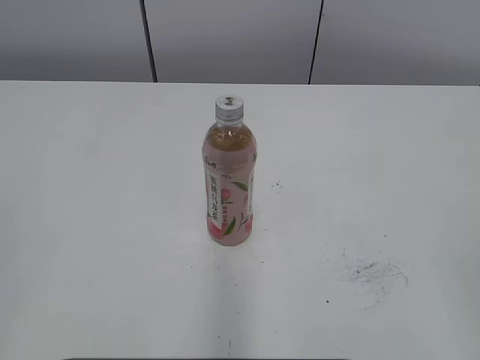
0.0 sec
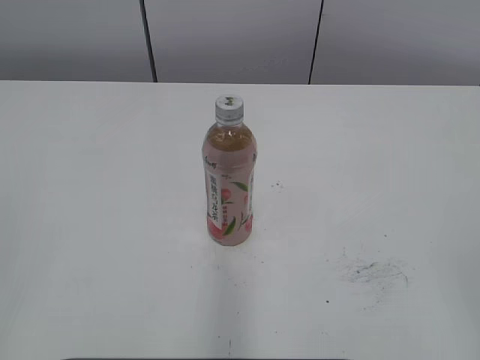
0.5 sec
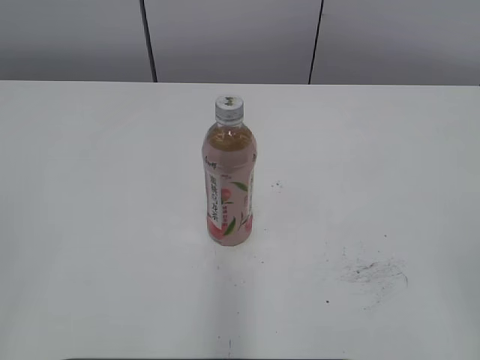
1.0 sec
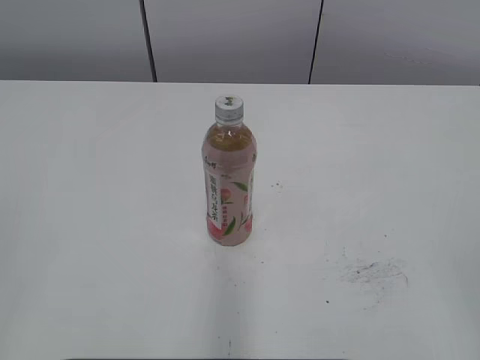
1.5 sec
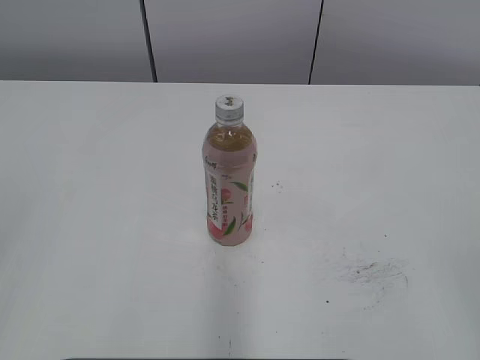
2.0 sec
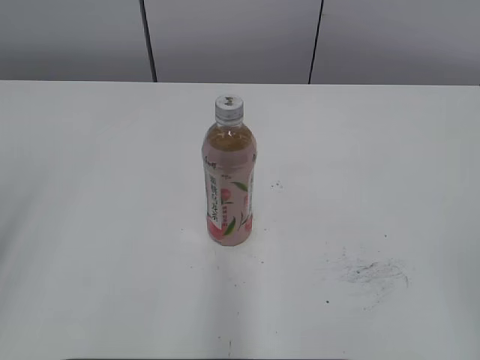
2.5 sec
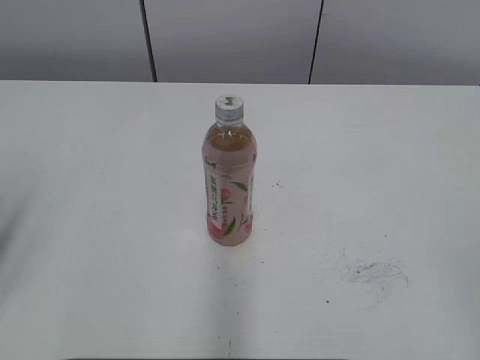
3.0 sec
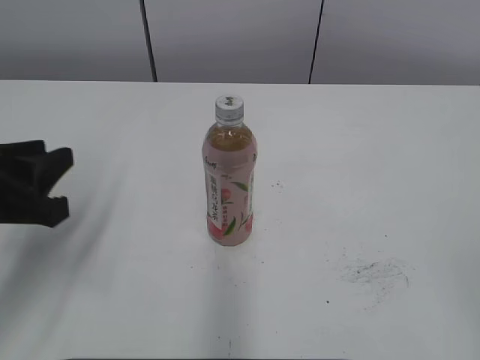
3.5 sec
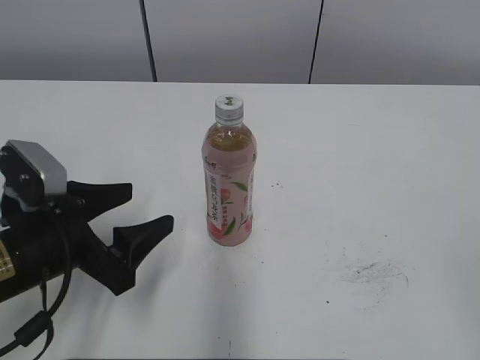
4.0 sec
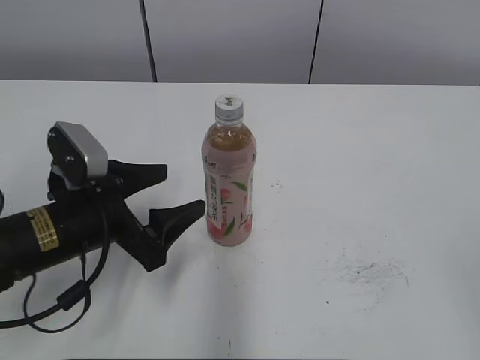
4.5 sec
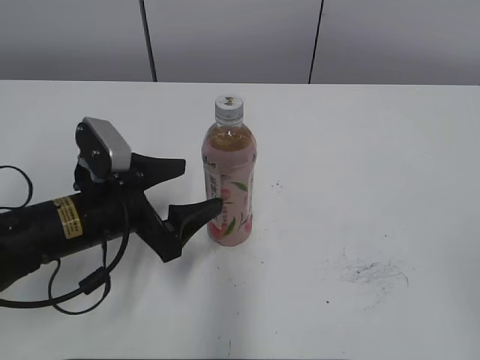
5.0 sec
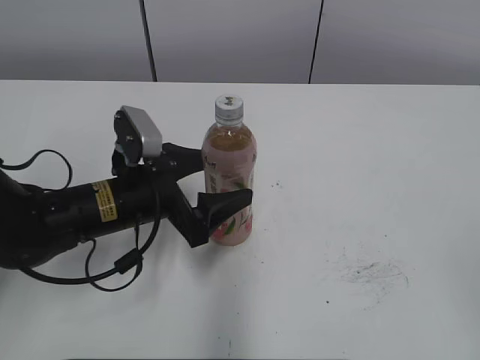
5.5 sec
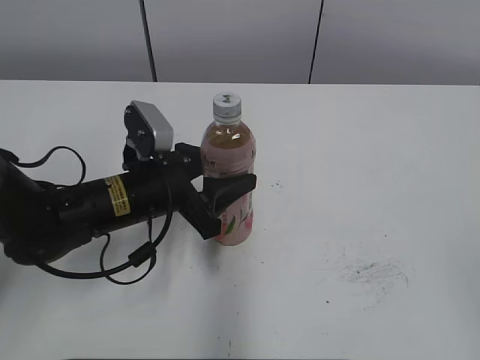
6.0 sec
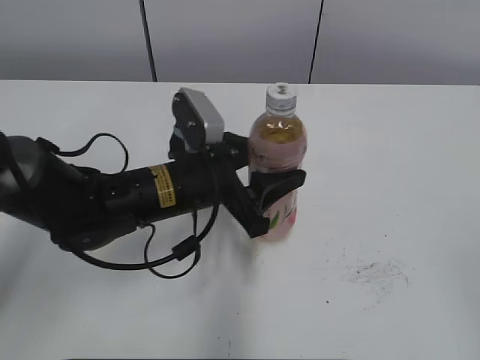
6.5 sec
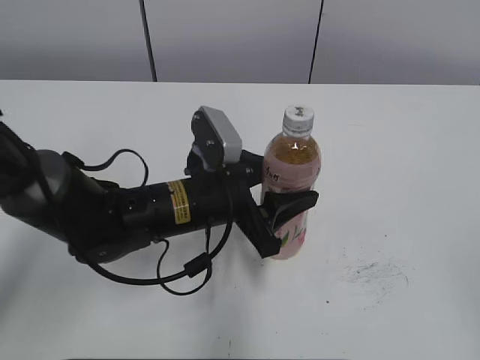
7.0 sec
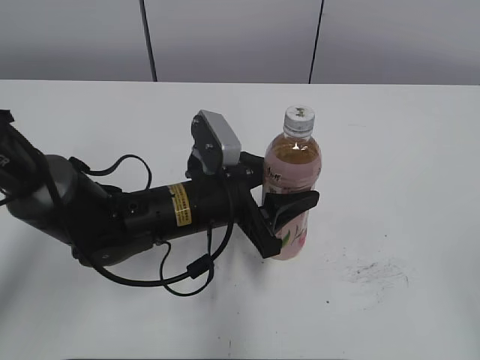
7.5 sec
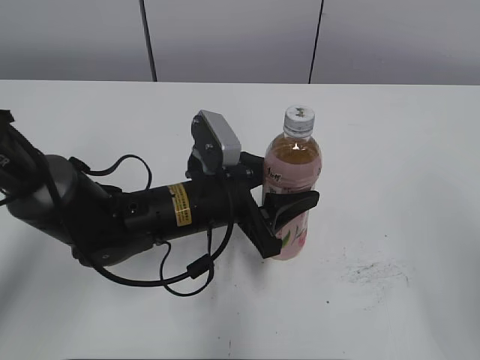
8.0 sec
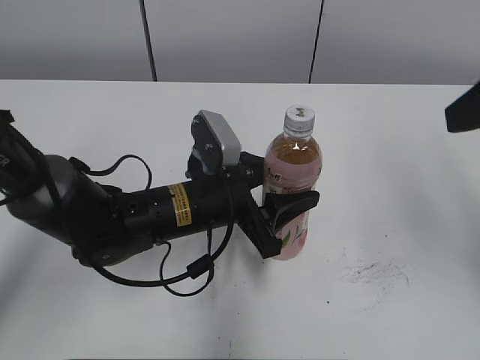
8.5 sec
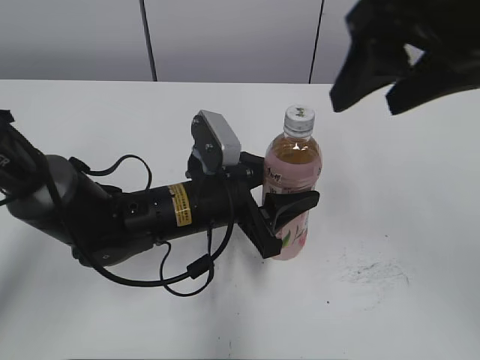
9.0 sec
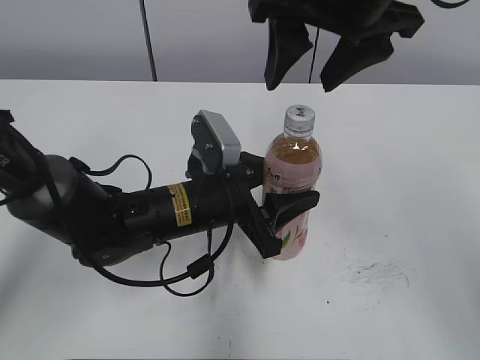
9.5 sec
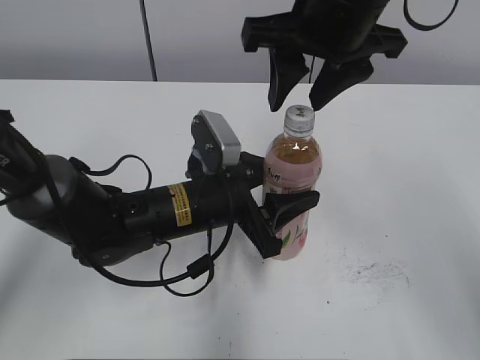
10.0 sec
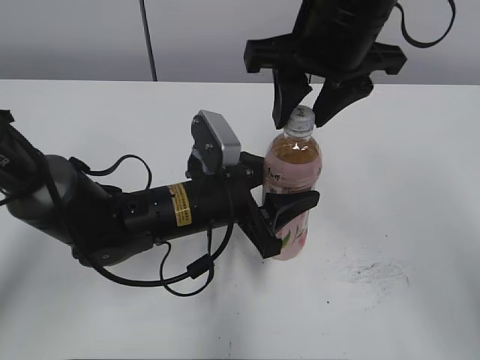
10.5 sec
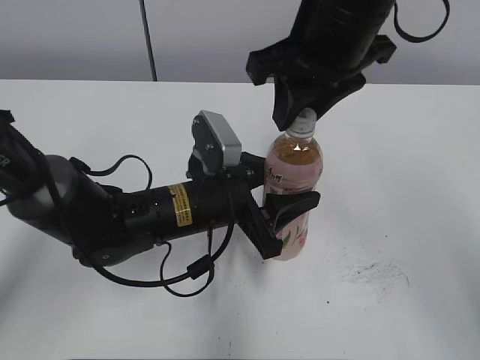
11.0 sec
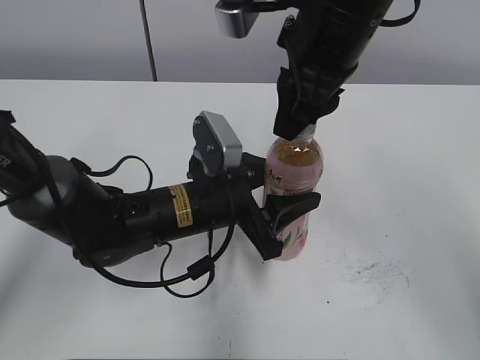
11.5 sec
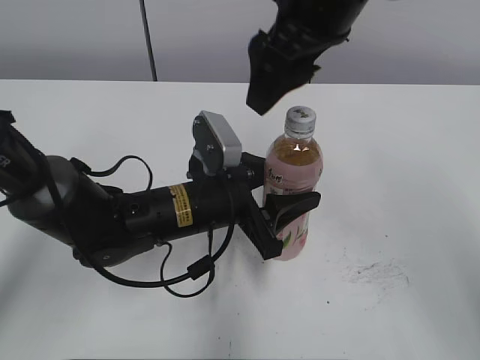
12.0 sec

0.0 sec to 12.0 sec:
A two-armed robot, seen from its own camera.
Step, 0.0 sec to 5.5 sec: Grab the Peach Oolong Tea with the left hand.
Step, 6.0 sec to 10.0 sec: Move the Peach Oolong Tea from left to right.
2.0 sec to 4.0 sec: The left gripper travels downward, forward and to the right by some 30 cm, and opens.
4.0 sec to 6.0 sec: The left gripper heads forward and to the right, covering about 10 cm, and closes up.
6.0 sec to 8.0 sec: The left gripper heads to the right, covering approximately 5 cm. Meanwhile the right gripper moves forward, approximately 10 cm.
8.0 sec to 10.0 sec: The right gripper heads forward and to the left, covering roughly 30 cm, and closes.
10.0 sec to 12.0 sec: The right gripper opens.

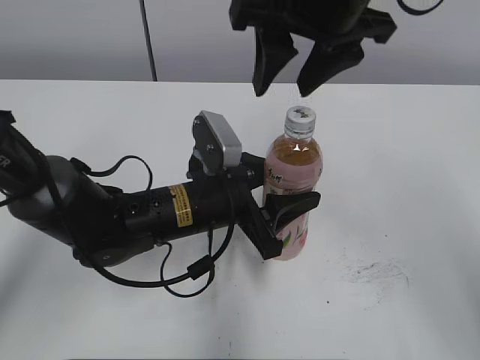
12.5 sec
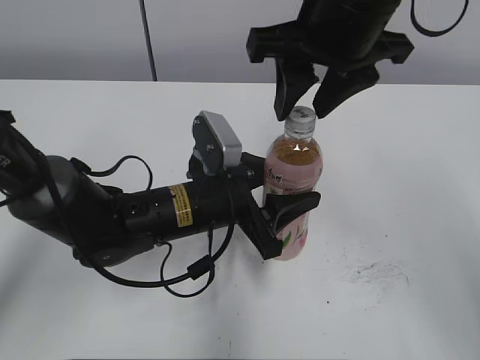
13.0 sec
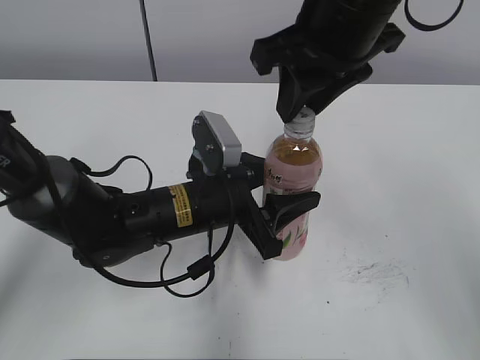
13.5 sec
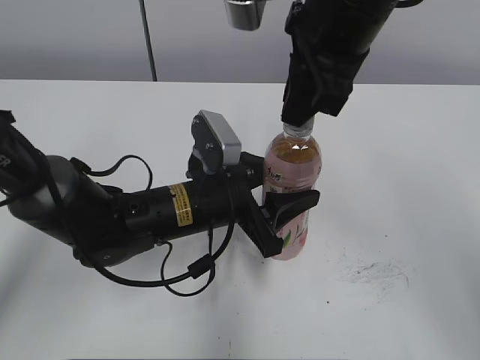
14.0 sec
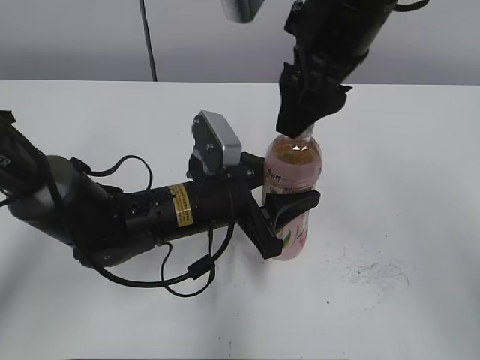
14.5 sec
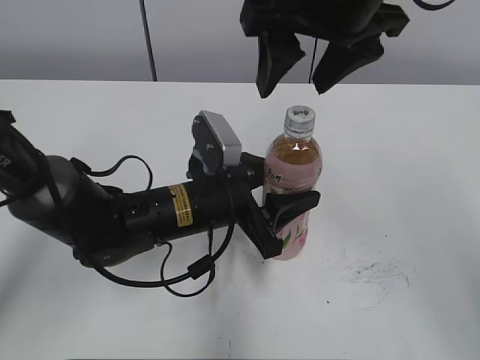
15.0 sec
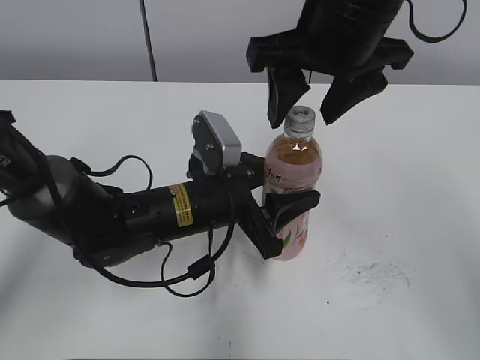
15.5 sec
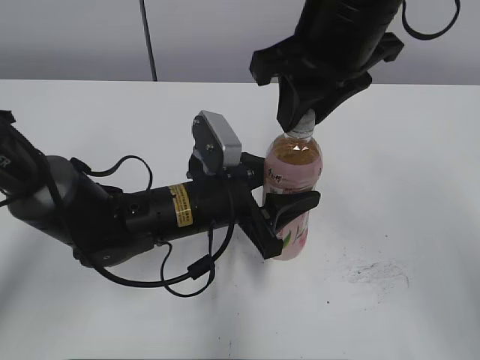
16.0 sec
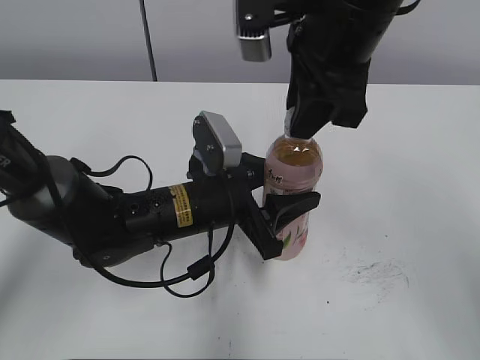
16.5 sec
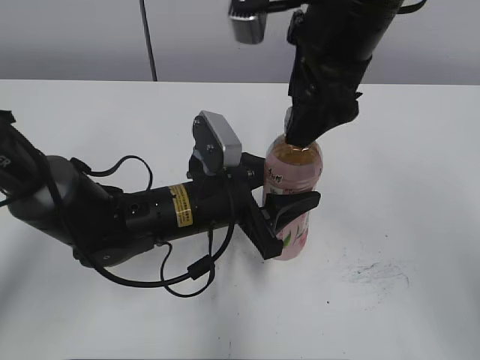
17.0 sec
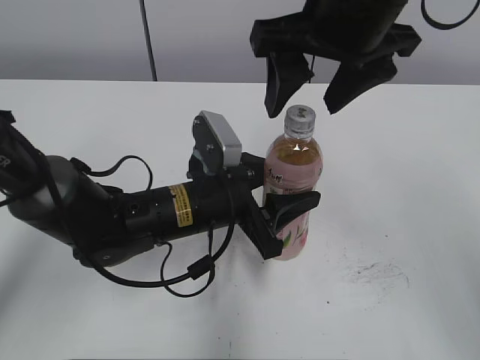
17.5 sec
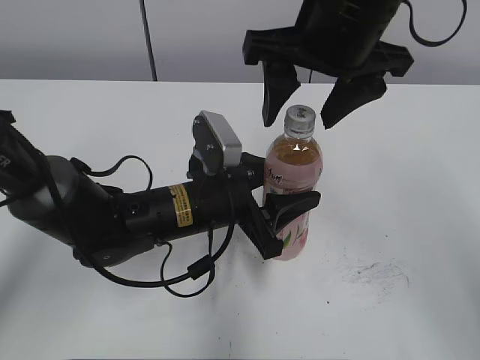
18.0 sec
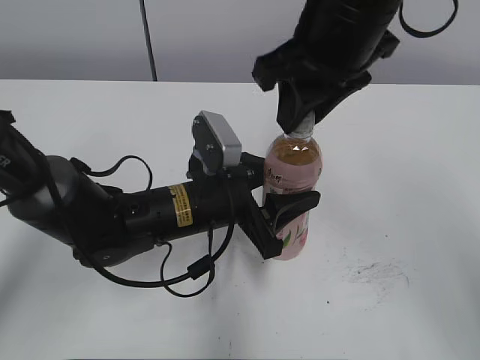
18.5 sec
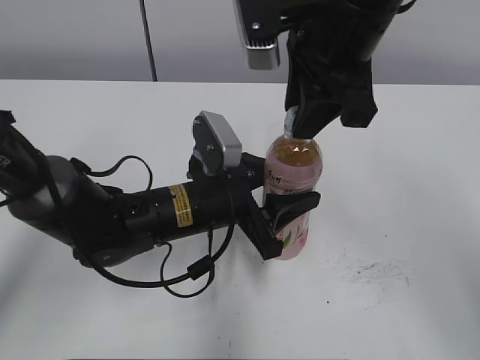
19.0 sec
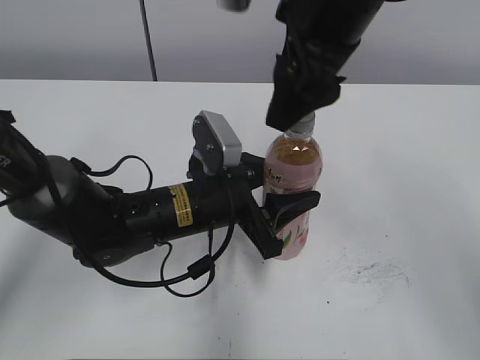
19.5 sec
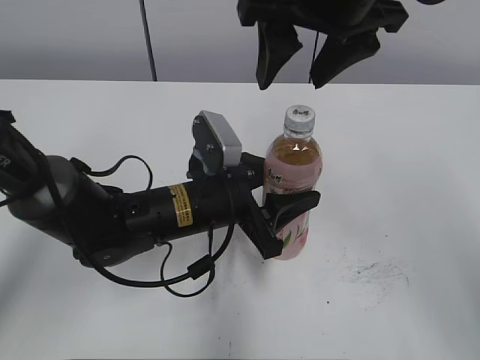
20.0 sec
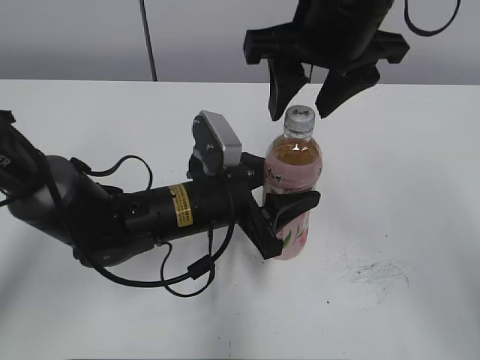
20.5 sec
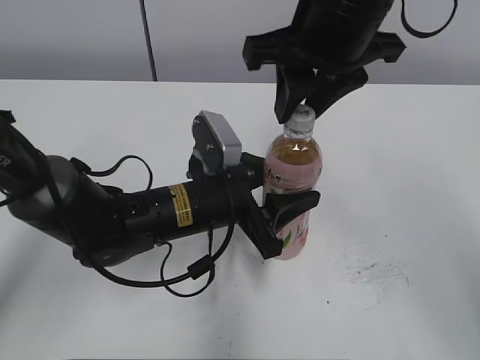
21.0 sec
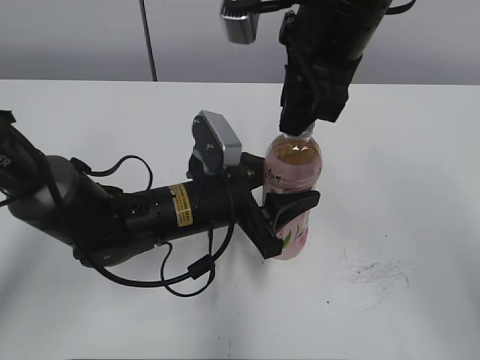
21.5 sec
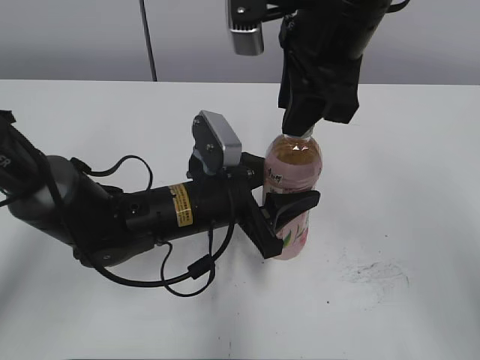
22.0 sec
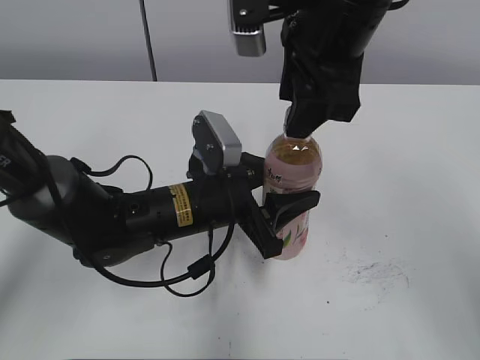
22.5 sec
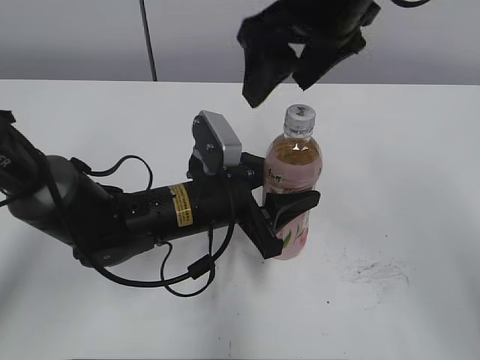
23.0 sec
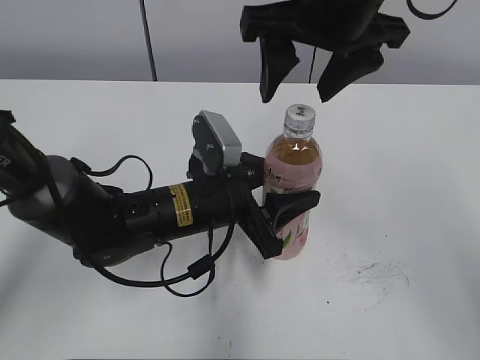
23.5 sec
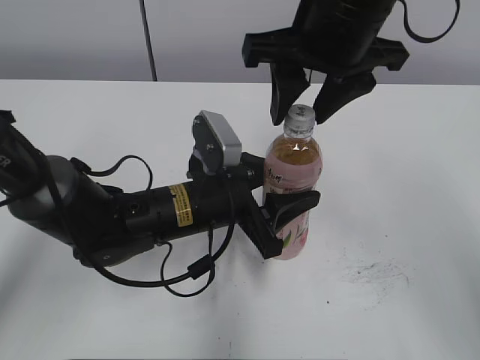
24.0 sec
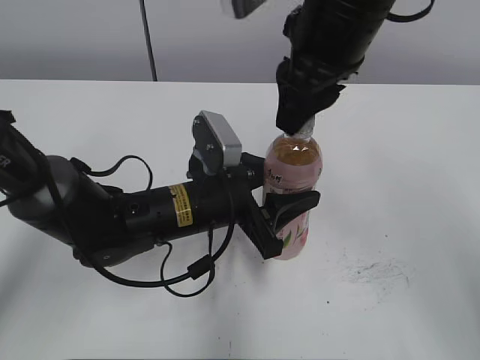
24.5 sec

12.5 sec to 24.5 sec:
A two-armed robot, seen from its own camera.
12.5 sec to 14.5 sec: The right gripper closes, then opens again.
14.5 sec to 16.5 sec: The right gripper closes up.
16.5 sec to 18.5 sec: The right gripper opens, then closes once more.
18.5 sec to 20.5 sec: The right gripper opens up.
20.5 sec to 22.5 sec: The right gripper closes, then reopens.
22.5 sec to 24.5 sec: The right gripper closes its fingers.

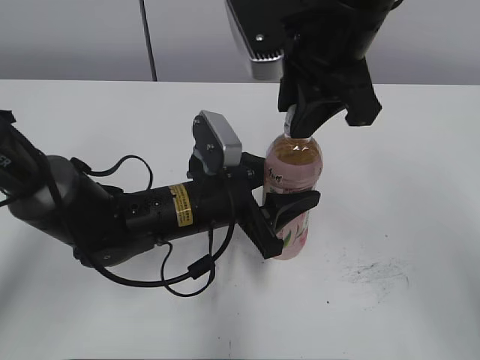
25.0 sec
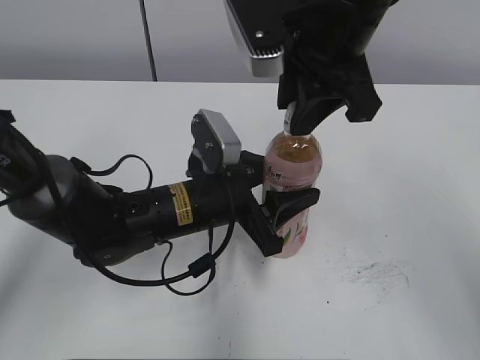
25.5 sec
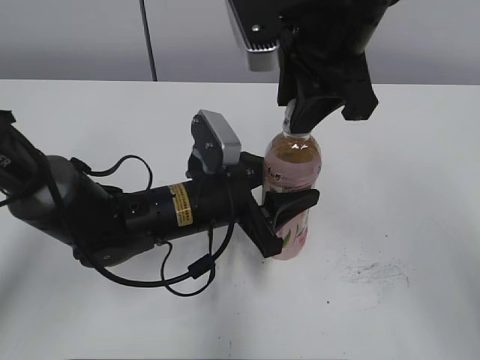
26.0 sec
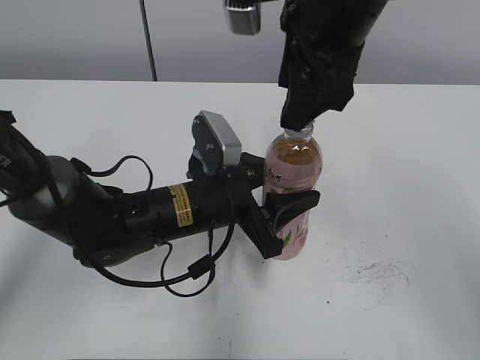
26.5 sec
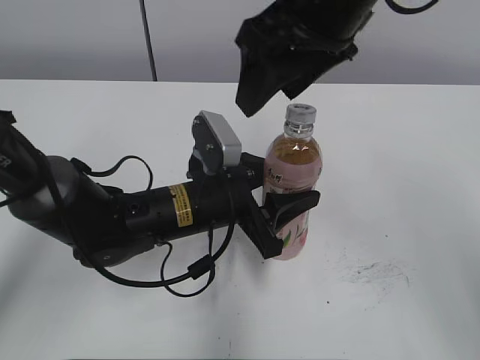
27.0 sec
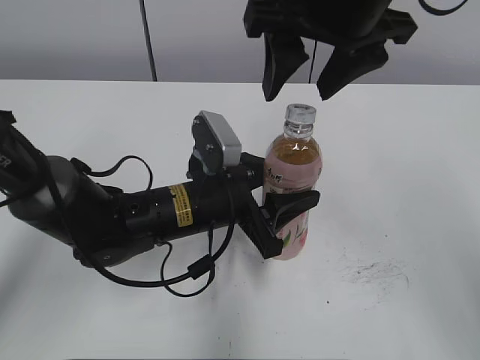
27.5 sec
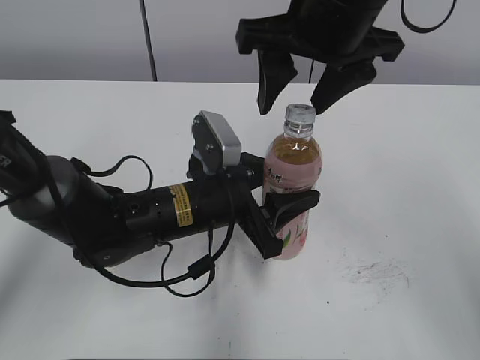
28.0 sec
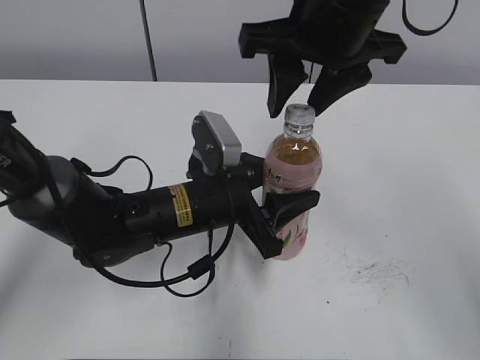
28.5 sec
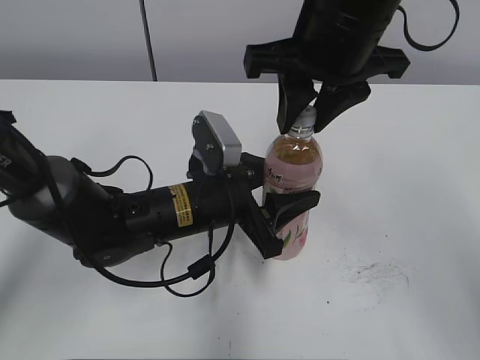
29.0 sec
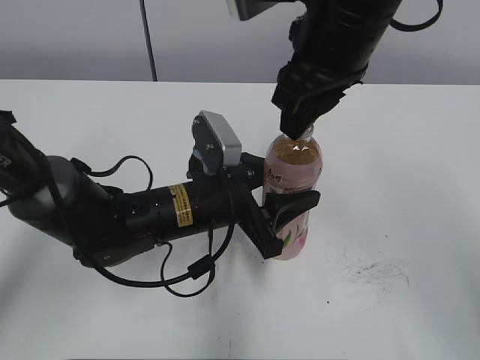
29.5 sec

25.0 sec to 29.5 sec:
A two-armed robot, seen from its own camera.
25.0 sec to 27.0 sec: The right gripper opens up.
27.0 sec to 29.5 sec: The right gripper closes its fingers.
